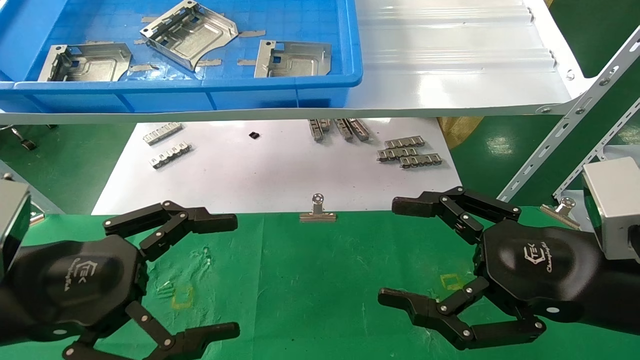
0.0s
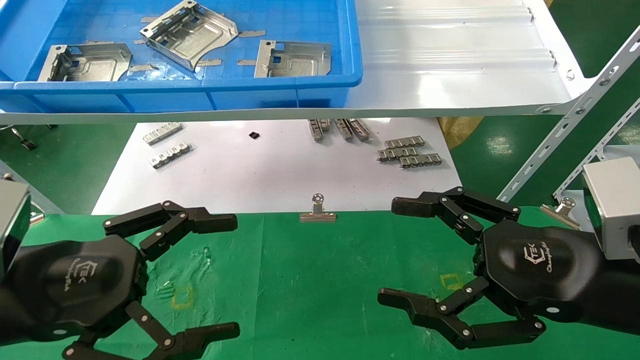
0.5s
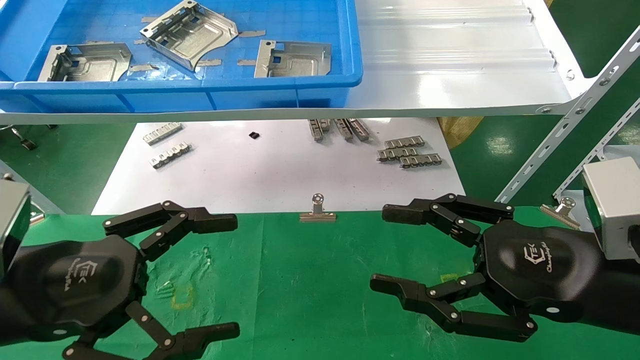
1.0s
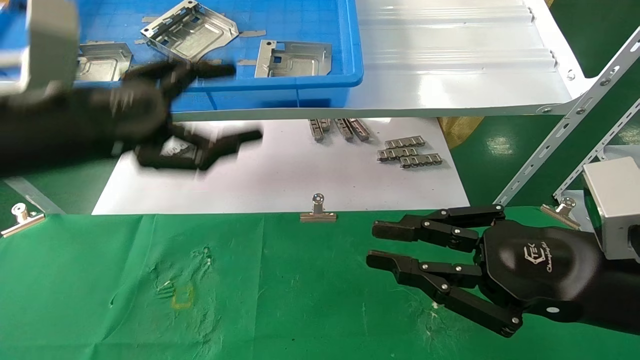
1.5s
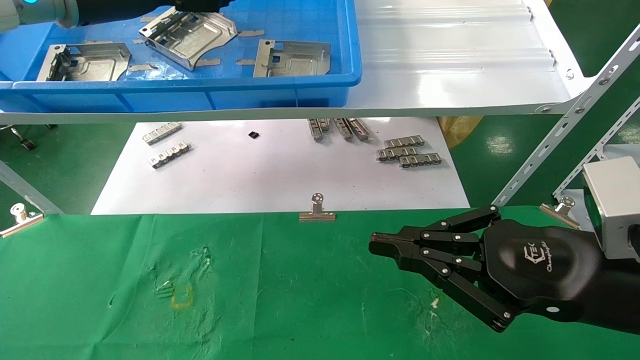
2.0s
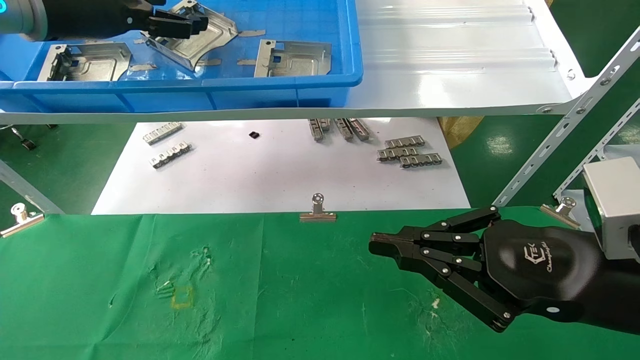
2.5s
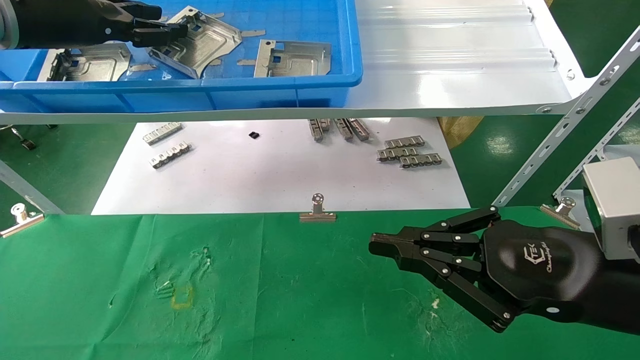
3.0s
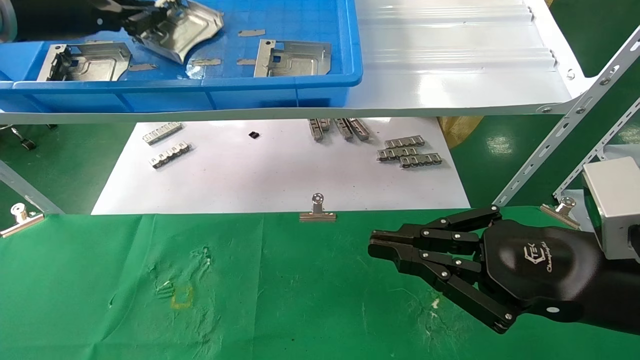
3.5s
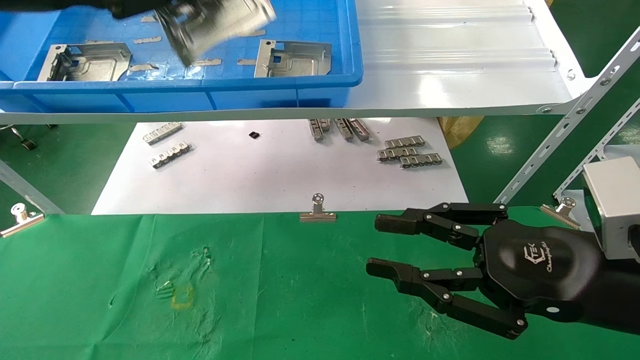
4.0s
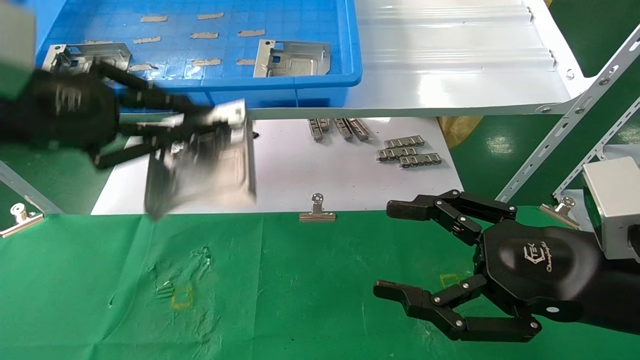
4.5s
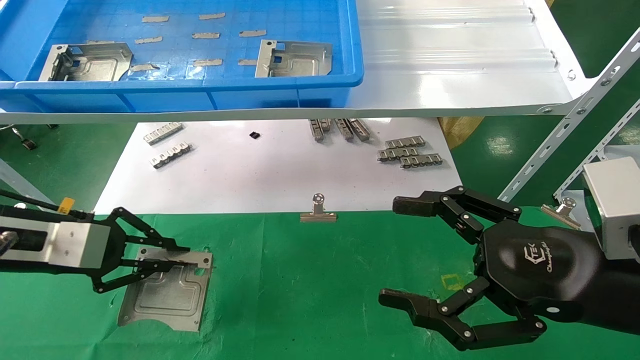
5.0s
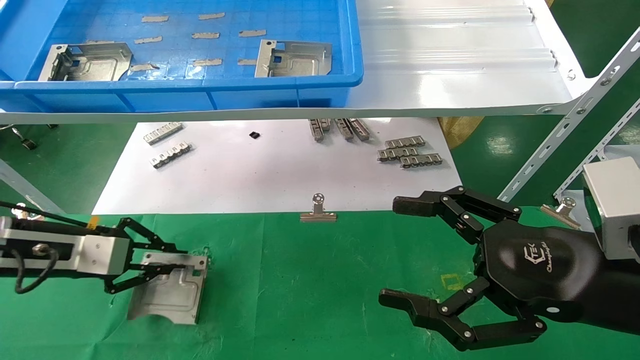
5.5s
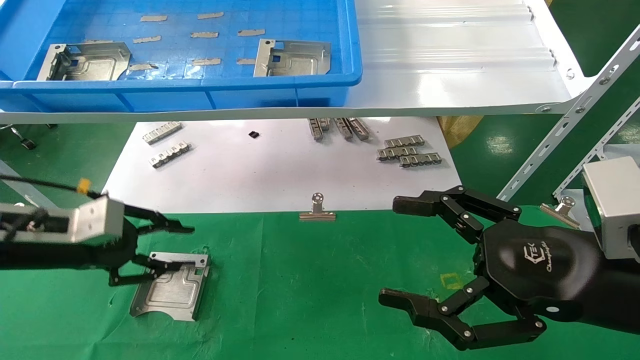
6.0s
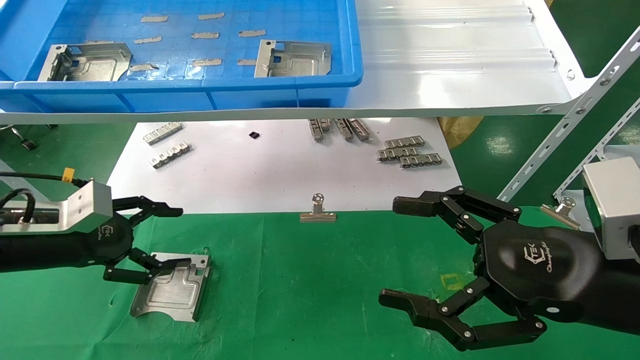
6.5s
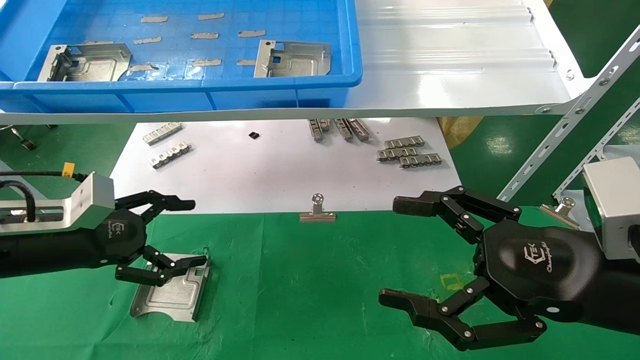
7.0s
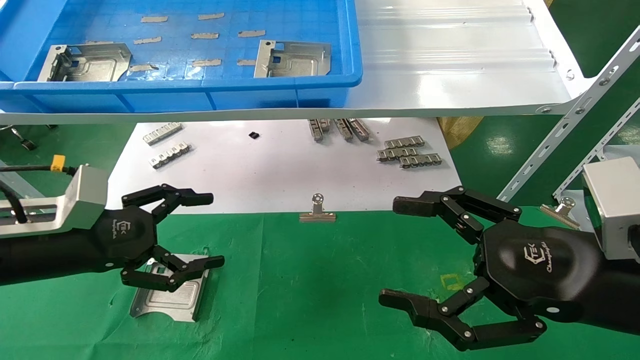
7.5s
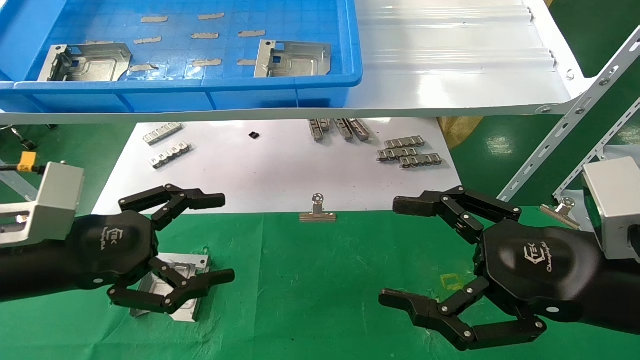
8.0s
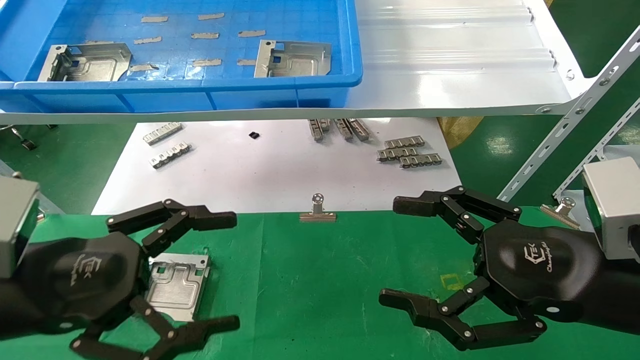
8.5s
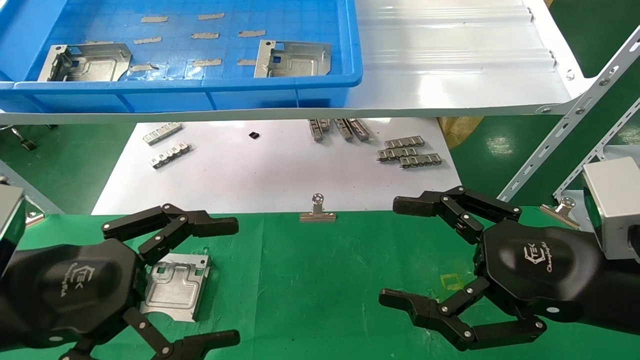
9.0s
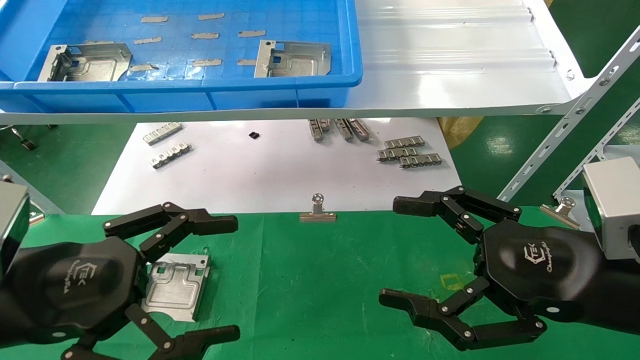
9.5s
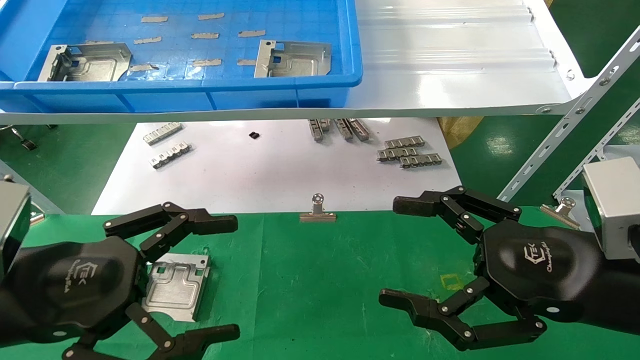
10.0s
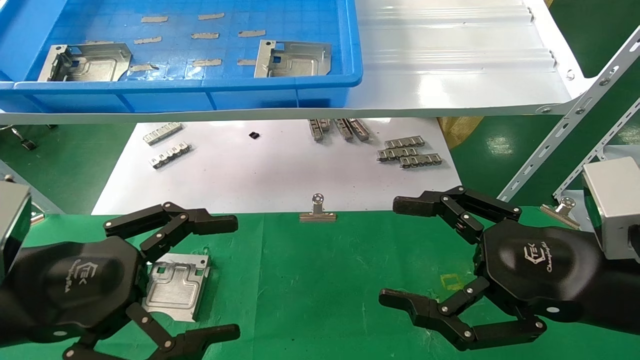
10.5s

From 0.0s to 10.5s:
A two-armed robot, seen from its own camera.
Task of the whole recording: use the mechanical arm to pick up the parts and place them on the table.
Step, from 1.5s to 3.5s: Pick up the hard drive bracket from the feeding area.
Step, from 4.0s to 5.5s: Place the hard drive bracket into the box.
From 0.0s to 2.0s: The left gripper is displaced upward and forward by roughly 30 cm. The right gripper closes up.
From 2.0s to 4.0s: The left gripper moves backward, roughly 10 cm, and closes its fingers.
From 4.0s to 6.5s: The left gripper heads downward, covering about 25 cm, and opens its fingers. Meanwhile the right gripper opens up.
From 6.5s to 8.5s: The left gripper travels backward and to the right by about 15 cm.
From 8.5s to 10.5s: The grippers stay close to where they were, moving slightly.
